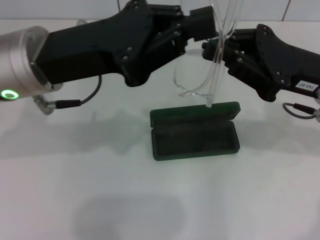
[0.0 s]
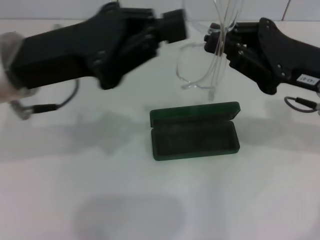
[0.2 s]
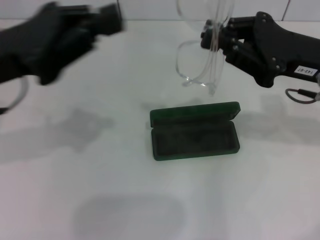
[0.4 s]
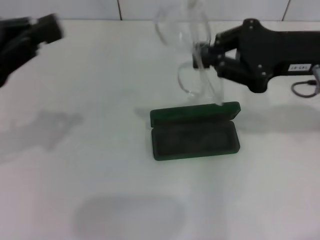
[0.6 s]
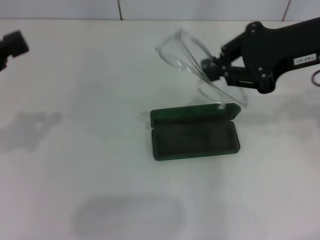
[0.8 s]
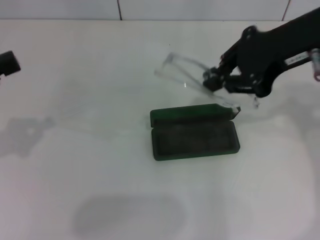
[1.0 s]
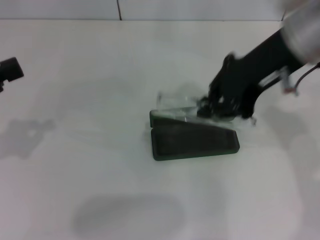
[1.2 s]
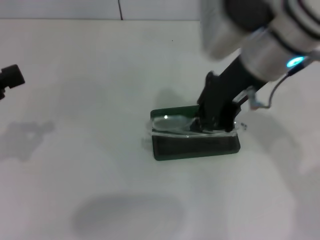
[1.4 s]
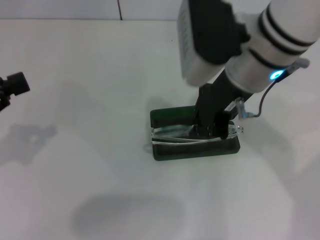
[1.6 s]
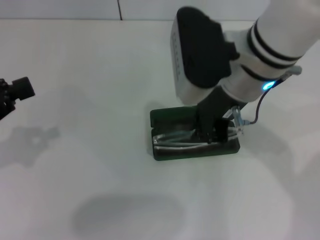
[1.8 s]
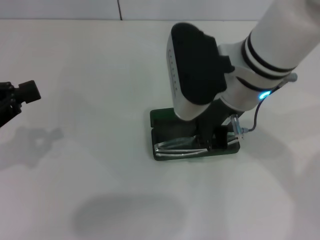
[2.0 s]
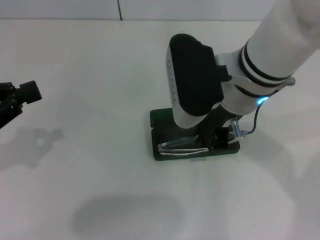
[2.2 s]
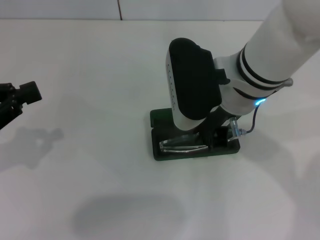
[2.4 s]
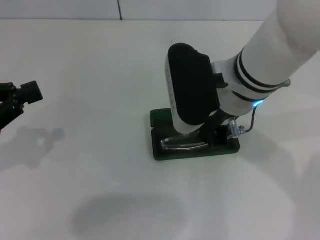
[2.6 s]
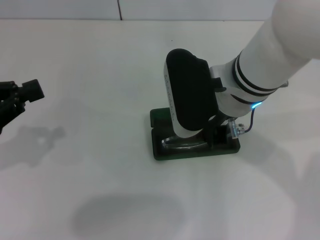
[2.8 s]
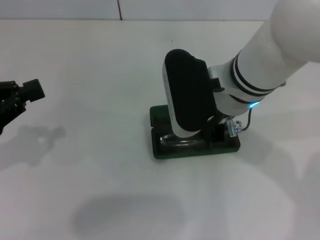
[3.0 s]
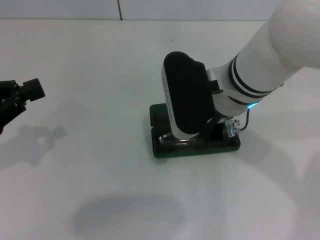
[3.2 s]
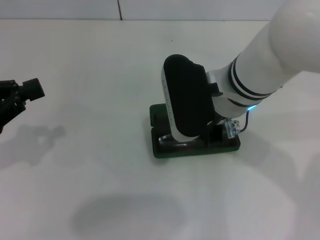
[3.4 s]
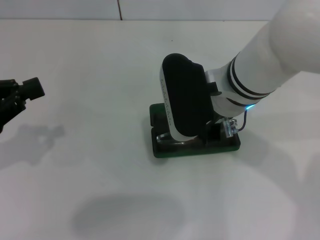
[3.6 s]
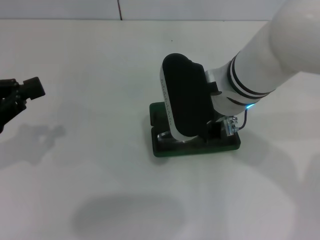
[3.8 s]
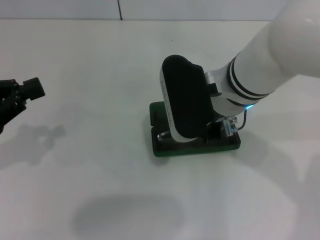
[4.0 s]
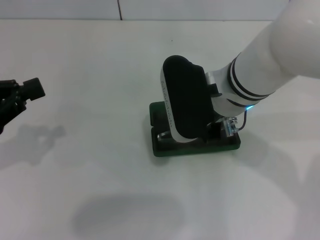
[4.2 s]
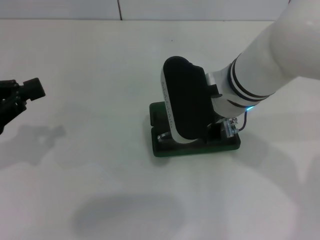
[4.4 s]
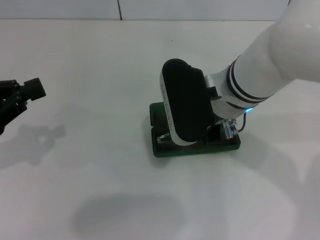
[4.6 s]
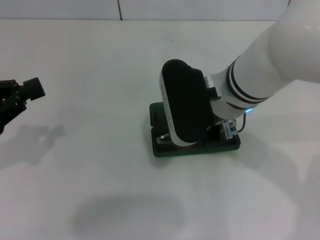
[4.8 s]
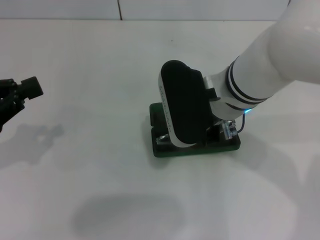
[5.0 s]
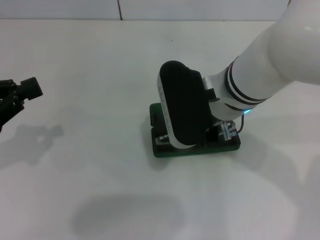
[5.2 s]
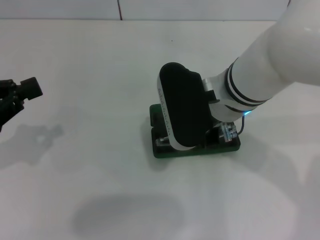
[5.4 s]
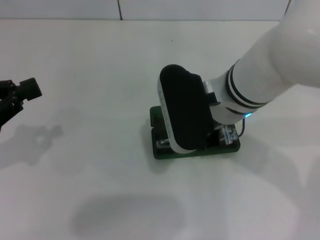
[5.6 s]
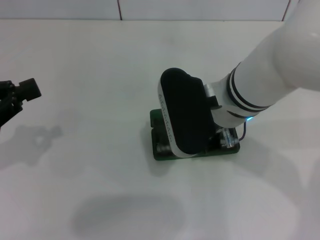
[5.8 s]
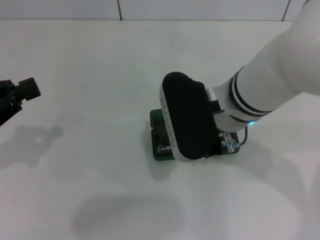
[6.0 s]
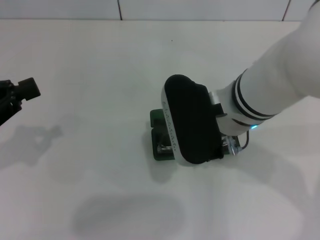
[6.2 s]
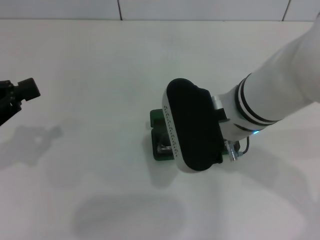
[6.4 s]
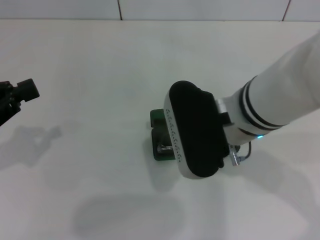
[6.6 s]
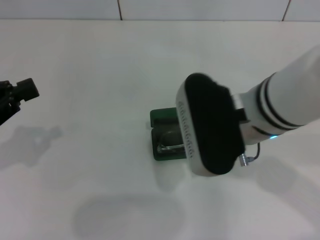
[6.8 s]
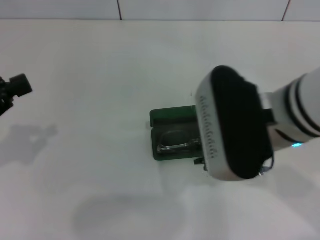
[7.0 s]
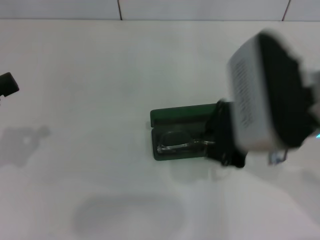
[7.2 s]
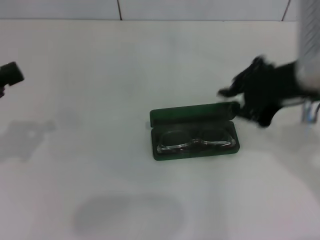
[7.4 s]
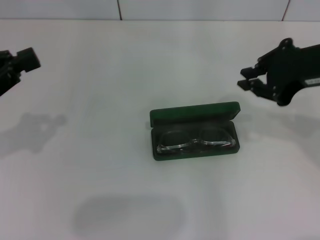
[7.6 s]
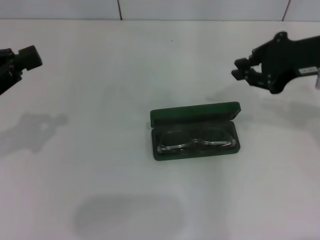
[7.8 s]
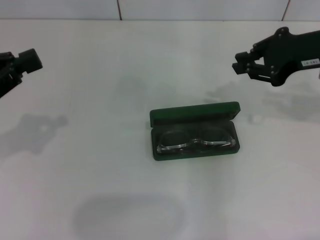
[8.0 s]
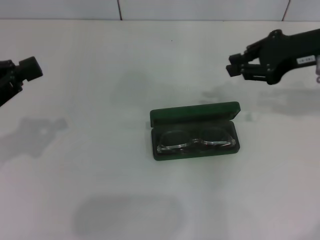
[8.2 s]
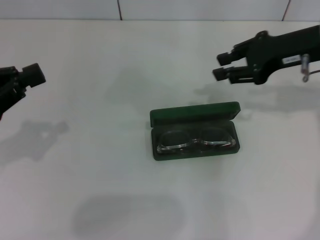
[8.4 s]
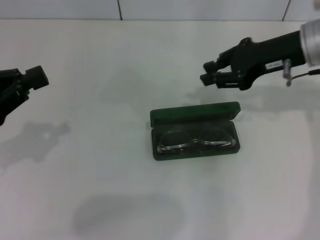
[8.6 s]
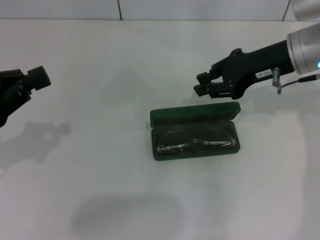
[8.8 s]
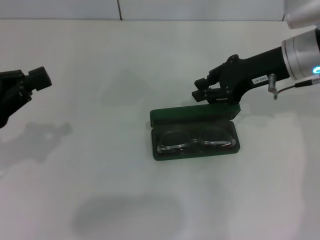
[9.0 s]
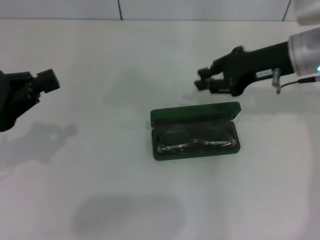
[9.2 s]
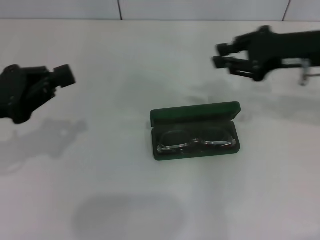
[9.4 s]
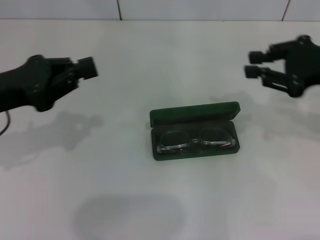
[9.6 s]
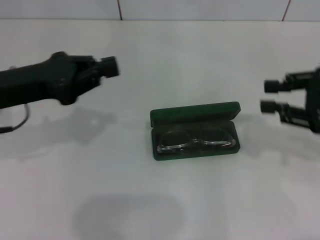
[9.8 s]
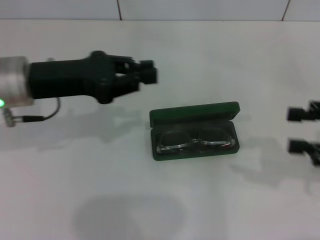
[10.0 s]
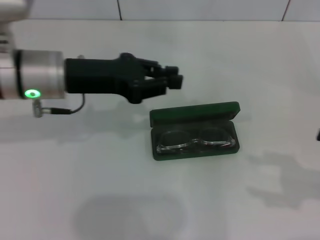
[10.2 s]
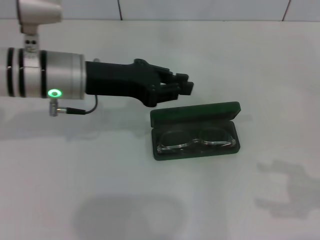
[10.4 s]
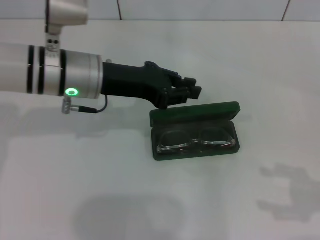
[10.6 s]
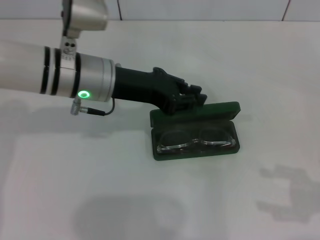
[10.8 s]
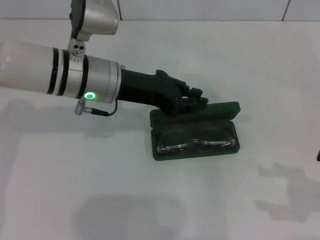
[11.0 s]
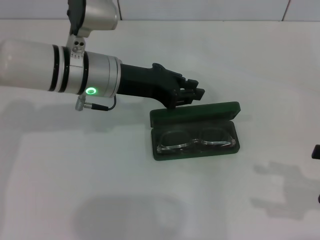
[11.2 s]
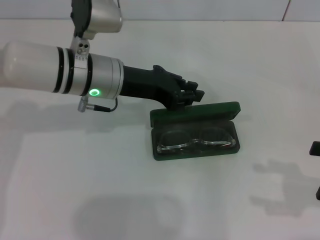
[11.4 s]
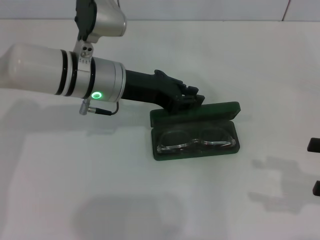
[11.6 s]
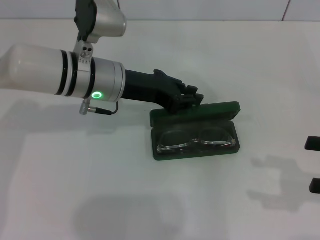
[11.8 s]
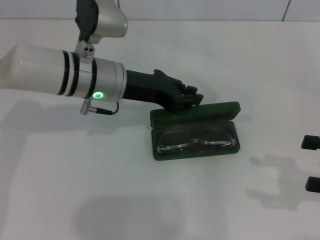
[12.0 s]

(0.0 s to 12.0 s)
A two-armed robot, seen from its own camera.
Step, 0.0 s - 6.2 s: Put the glasses into the case with your right hand.
0.0 s - 1.6 s: The right gripper moves to the left and upward, approximately 15 cm. Meanwhile the left gripper travels to the left by roughly 20 cm.
1.6 s - 3.0 s: The right gripper moves downward, about 5 cm.
3.0 s - 4.4 s: Neither gripper changes place.
4.4 s - 6.0 s: The grippers make only small movements.
6.0 s - 7.6 s: The right gripper is displaced to the right and upward by roughly 15 cm.
7.6 s - 9.0 s: The right gripper is displaced forward and downward by some 10 cm.
9.0 s - 10.4 s: The left gripper shifts roughly 20 cm to the right and forward, while the right gripper goes roughly 25 cm backward and to the right, and opens its fingers.
10.4 s - 12.0 s: The left gripper changes place by approximately 5 cm.

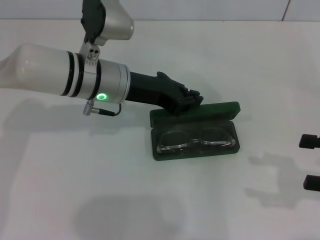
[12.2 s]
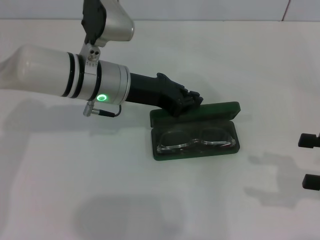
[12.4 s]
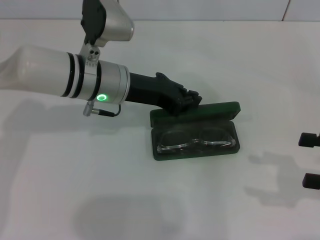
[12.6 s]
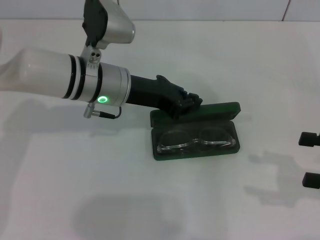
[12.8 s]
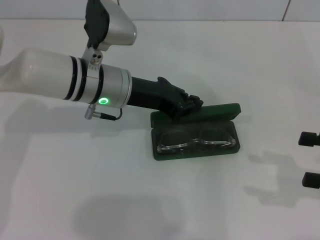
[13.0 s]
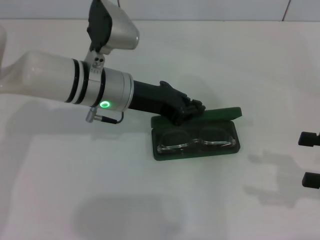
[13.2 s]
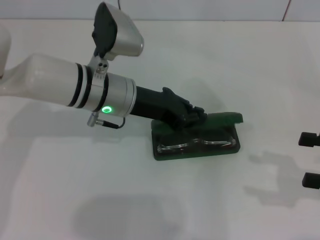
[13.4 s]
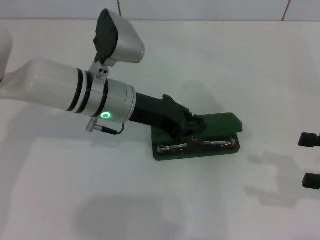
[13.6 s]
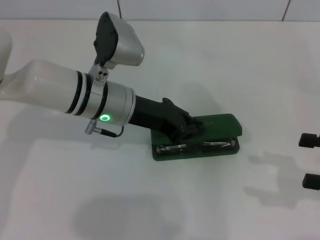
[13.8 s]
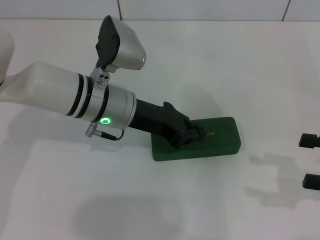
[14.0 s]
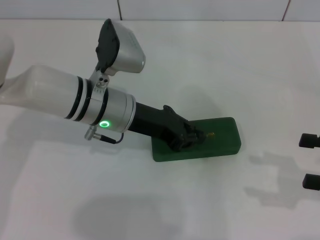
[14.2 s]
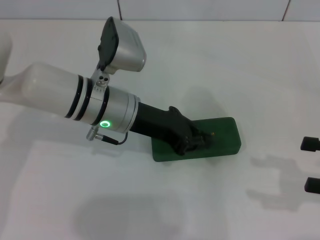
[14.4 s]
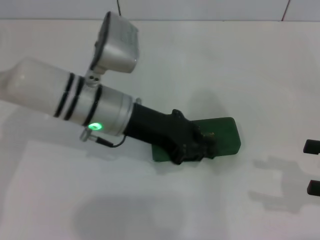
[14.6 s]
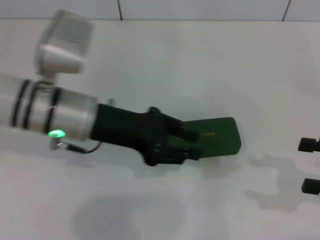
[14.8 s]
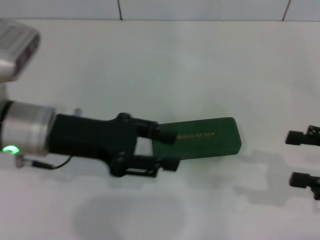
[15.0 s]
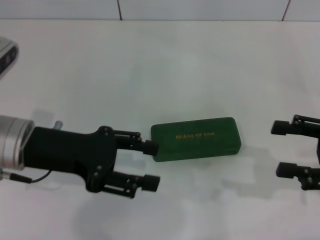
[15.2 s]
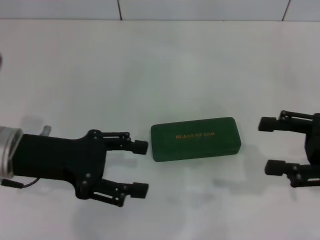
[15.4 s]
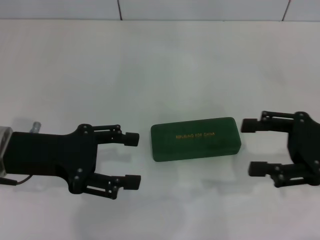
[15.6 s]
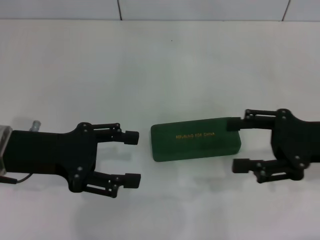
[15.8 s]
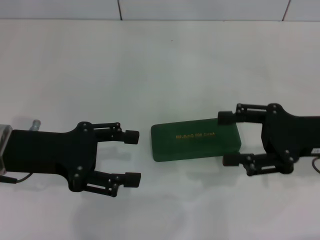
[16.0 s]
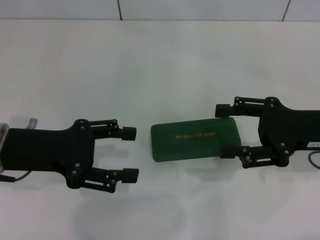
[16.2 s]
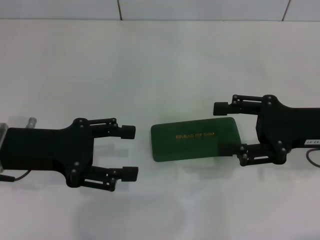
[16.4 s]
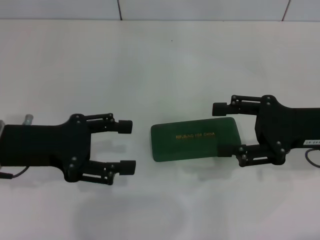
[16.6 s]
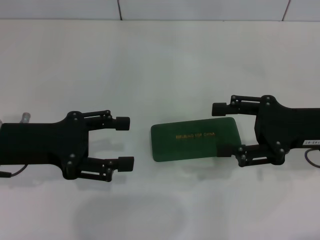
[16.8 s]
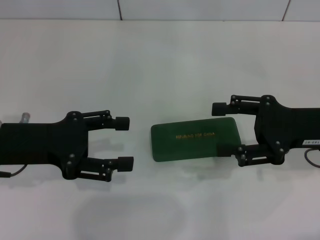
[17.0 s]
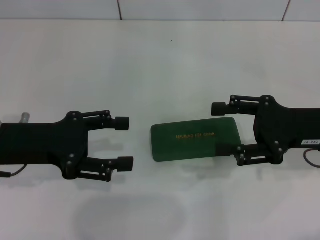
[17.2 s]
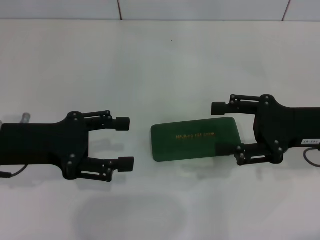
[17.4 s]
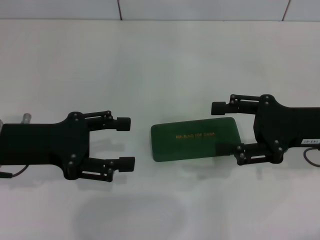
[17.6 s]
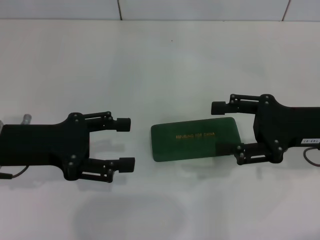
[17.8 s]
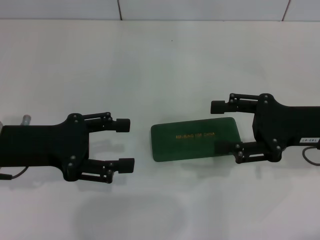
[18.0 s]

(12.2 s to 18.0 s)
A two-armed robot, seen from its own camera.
Step, 12.2 s - 14.2 s: Close the glasses case with your left hand.
12.2 s - 13.6 s: There are only small adjustments of the grippers.
13.6 s - 15.0 s: The left gripper heads to the left and backward, covering roughly 10 cm.
15.0 s - 16.6 s: The left gripper shifts roughly 5 cm to the left, and opens its fingers. Meanwhile the right gripper is displaced to the left and forward by about 10 cm.
16.6 s - 18.0 s: Both grippers stay put.

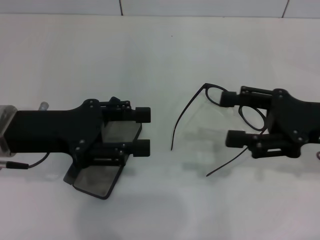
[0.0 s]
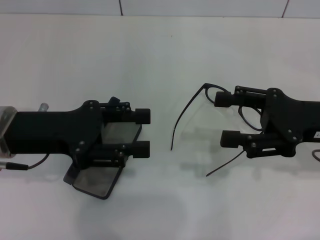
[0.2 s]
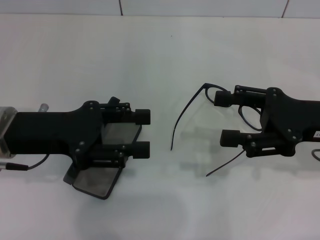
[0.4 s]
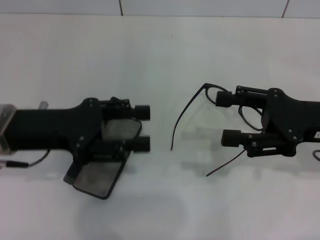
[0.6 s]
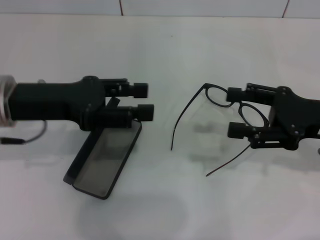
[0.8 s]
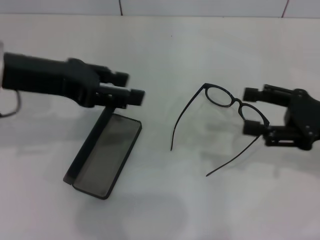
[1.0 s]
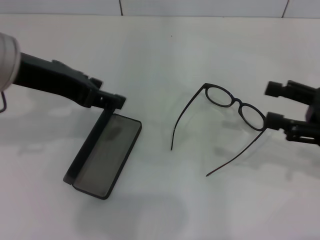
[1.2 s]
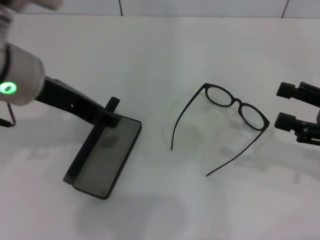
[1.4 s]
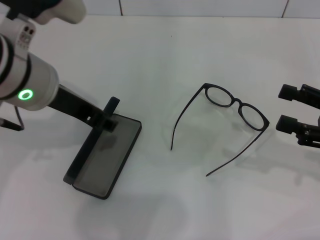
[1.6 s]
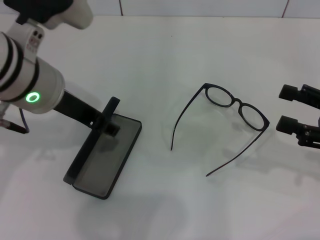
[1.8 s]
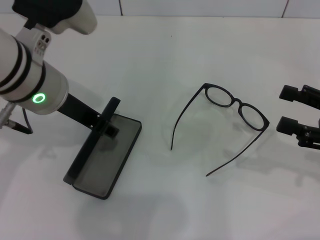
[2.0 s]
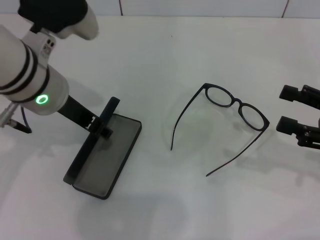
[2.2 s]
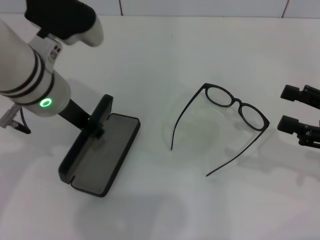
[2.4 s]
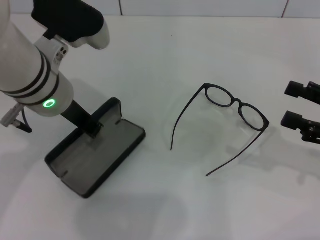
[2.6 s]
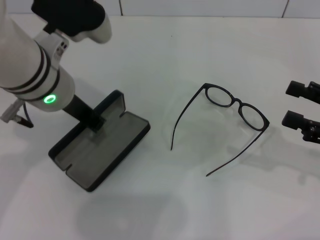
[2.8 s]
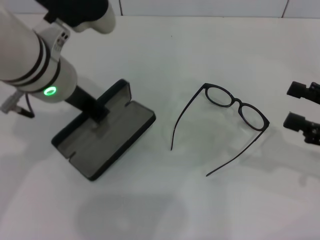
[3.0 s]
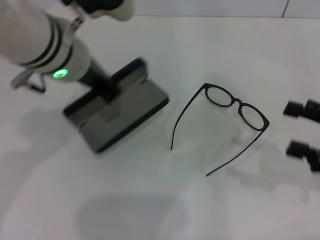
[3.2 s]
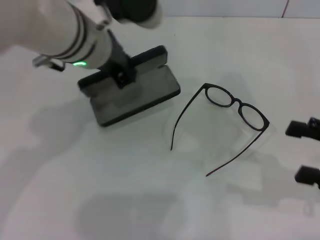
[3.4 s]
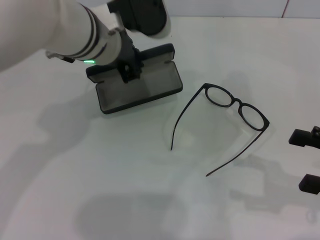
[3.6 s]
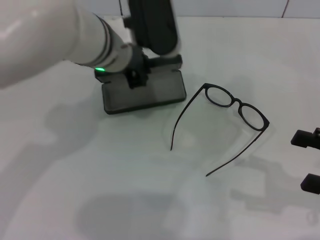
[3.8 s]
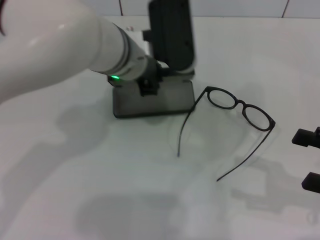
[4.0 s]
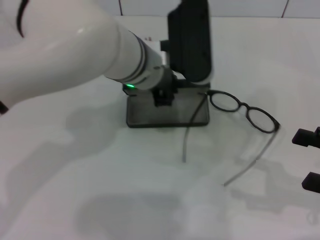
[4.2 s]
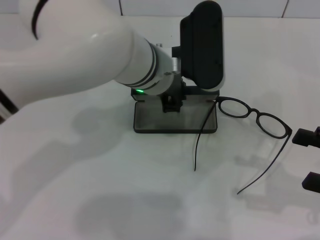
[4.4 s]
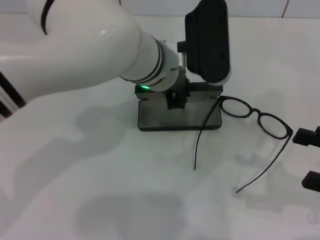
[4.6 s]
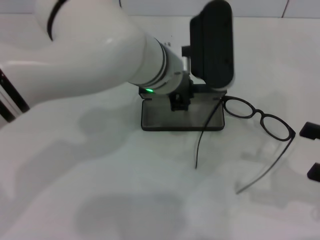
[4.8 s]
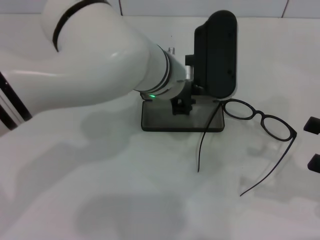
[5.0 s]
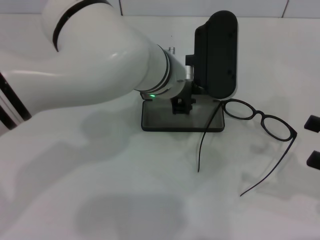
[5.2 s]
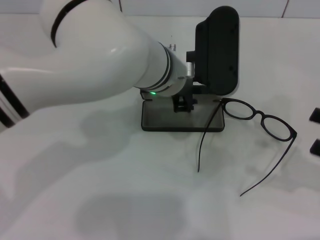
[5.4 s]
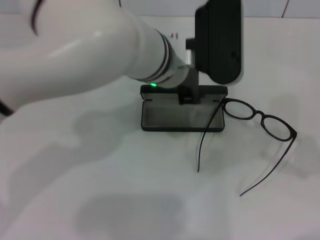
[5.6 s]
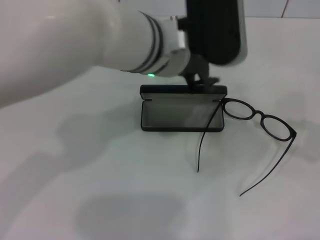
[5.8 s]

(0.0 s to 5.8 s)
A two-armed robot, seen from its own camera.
Step, 0.0 s - 2.4 s: Grab the glasses case with your left hand.
Step, 2.8 s - 4.8 s: Place the glasses case in the center of the table with your left hand.
0.0 s - 1.4 s: The left gripper heads upward and to the right, covering approximately 10 cm. Meanwhile the right gripper goes approximately 5 cm to the right.
1.4 s - 2.8 s: The left gripper changes place by approximately 5 cm, and closes.
2.8 s - 4.4 s: The left gripper heads to the right, covering about 10 cm.
4.4 s - 5.8 s: The right gripper heads to the right and upward, covering roughly 10 cm, while the left gripper changes place by about 5 cm, and opens.
